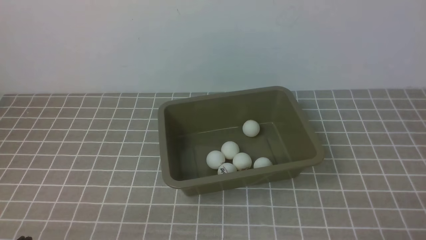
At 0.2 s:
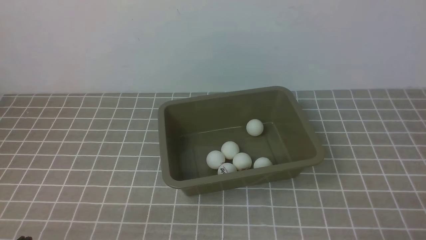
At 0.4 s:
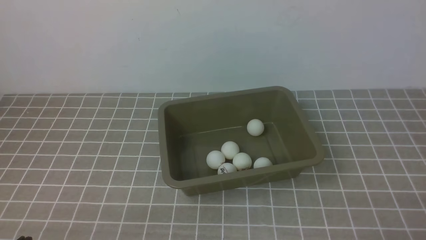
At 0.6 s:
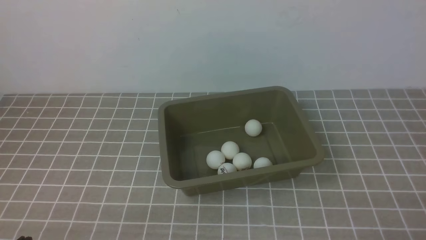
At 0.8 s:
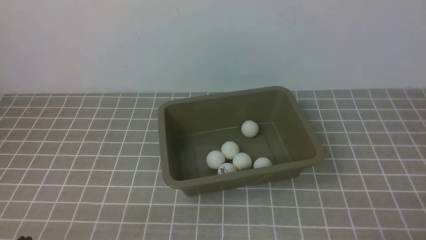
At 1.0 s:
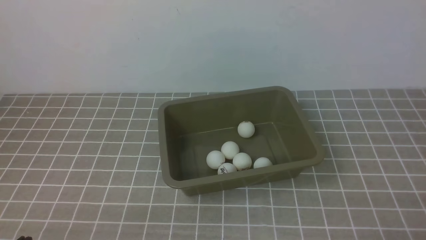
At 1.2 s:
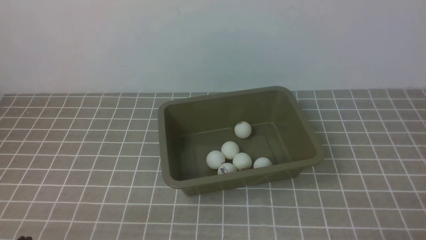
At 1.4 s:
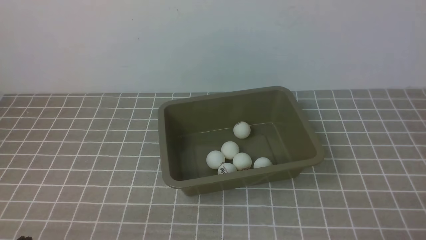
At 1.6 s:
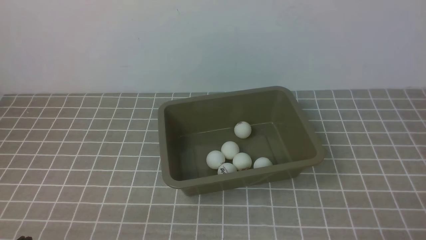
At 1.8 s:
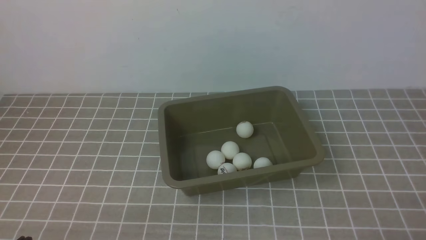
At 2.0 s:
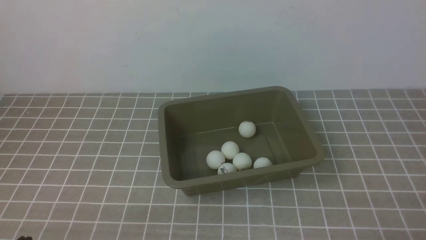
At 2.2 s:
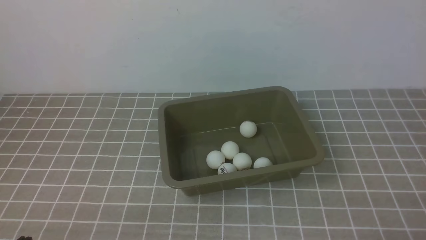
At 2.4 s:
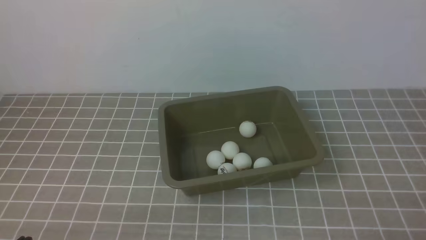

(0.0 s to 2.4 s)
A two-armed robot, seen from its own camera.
0.0 s - 2.4 s: The two grippers keep their place.

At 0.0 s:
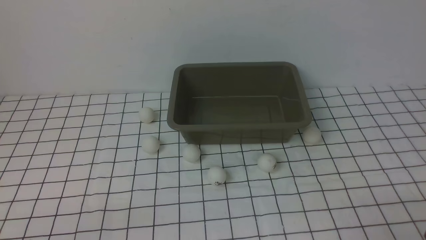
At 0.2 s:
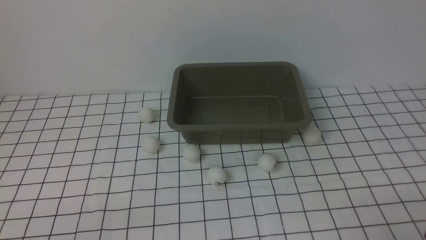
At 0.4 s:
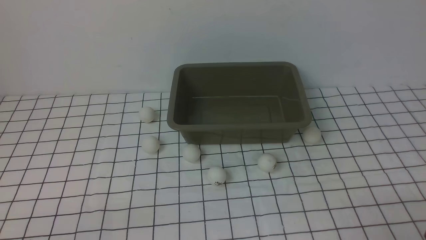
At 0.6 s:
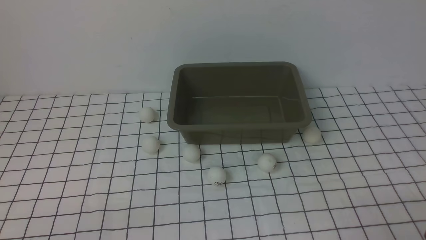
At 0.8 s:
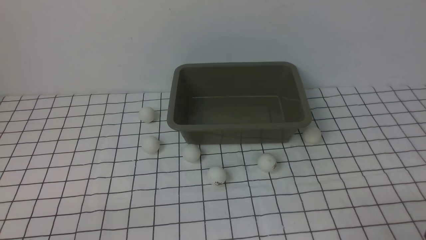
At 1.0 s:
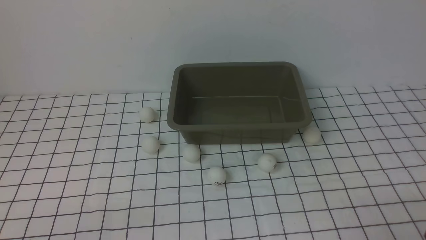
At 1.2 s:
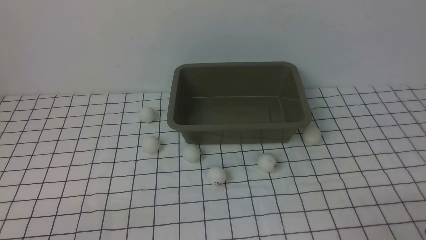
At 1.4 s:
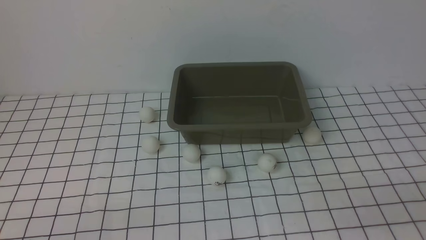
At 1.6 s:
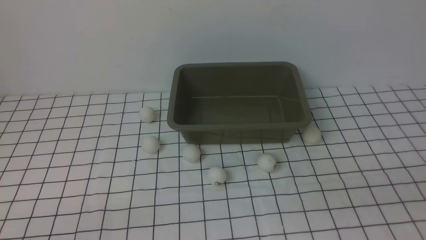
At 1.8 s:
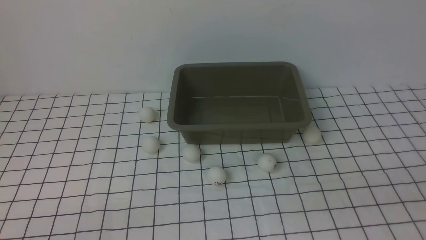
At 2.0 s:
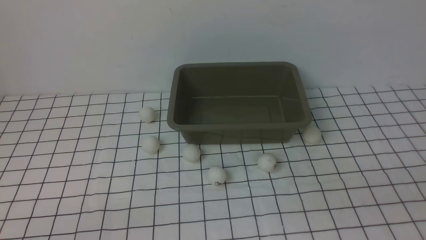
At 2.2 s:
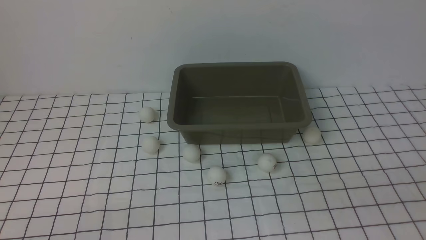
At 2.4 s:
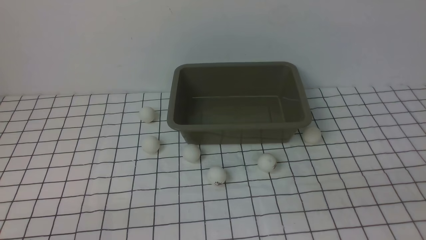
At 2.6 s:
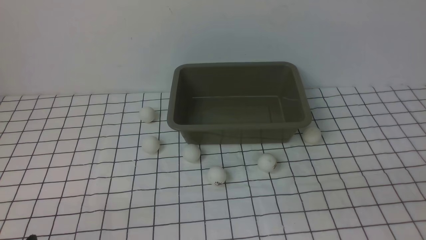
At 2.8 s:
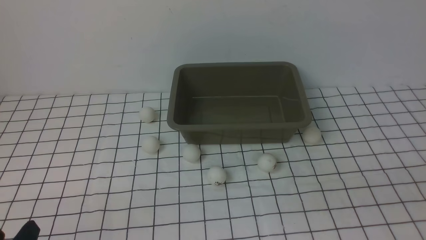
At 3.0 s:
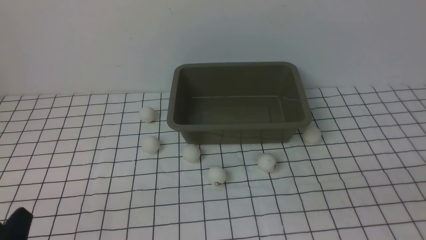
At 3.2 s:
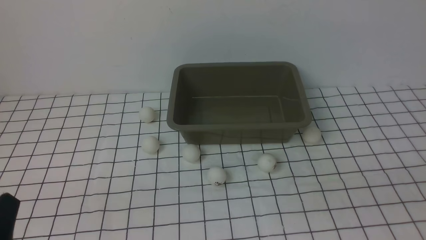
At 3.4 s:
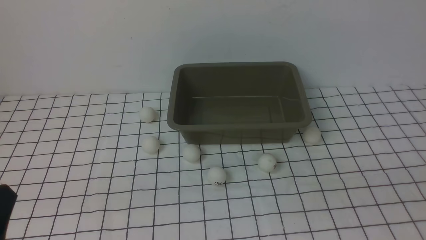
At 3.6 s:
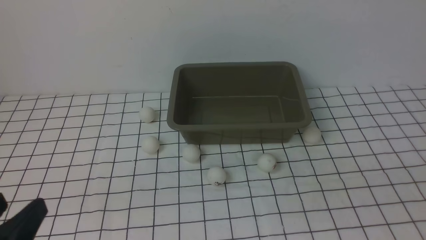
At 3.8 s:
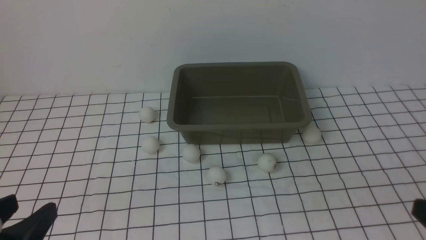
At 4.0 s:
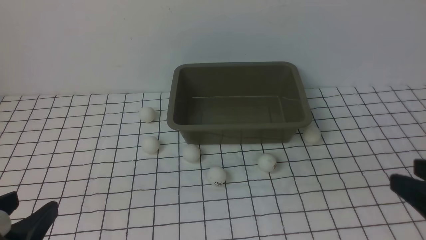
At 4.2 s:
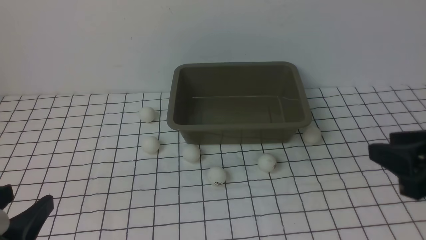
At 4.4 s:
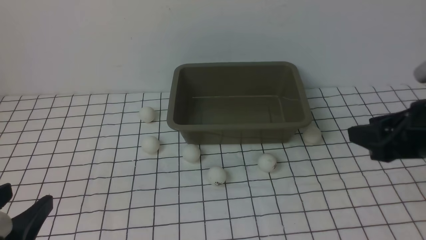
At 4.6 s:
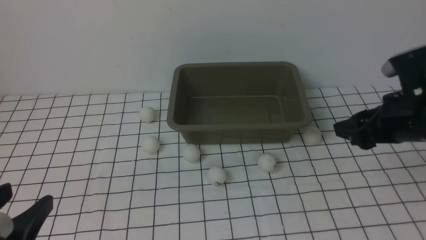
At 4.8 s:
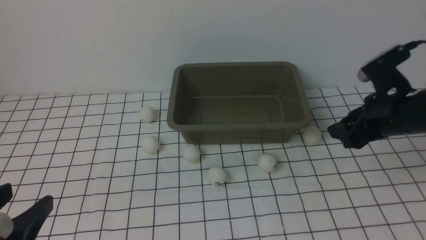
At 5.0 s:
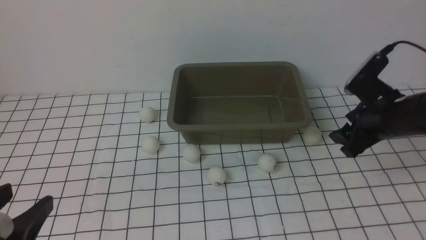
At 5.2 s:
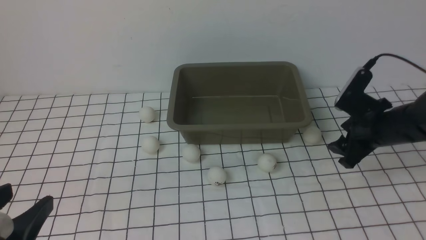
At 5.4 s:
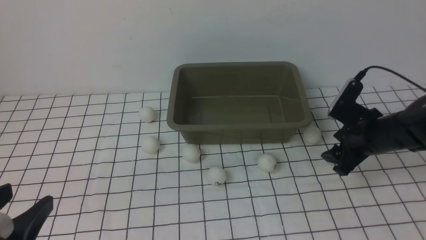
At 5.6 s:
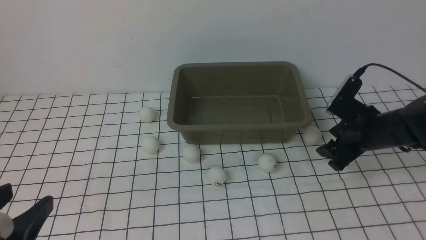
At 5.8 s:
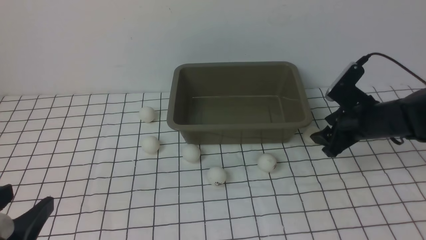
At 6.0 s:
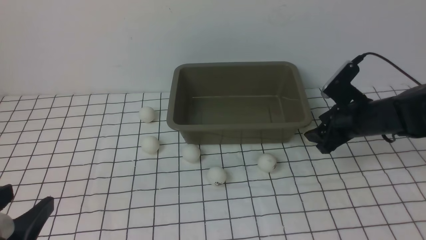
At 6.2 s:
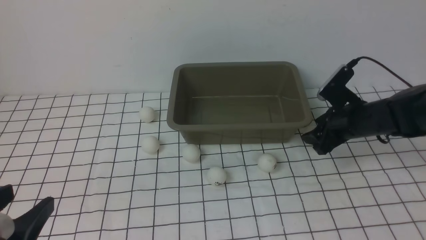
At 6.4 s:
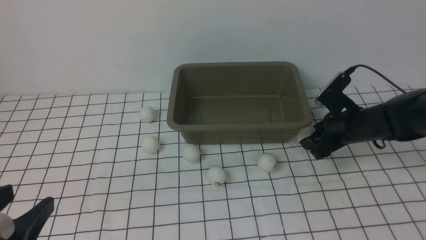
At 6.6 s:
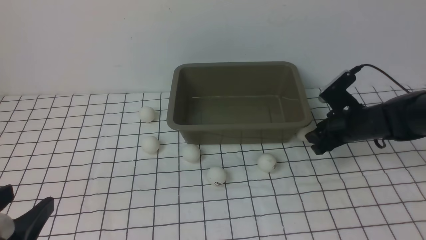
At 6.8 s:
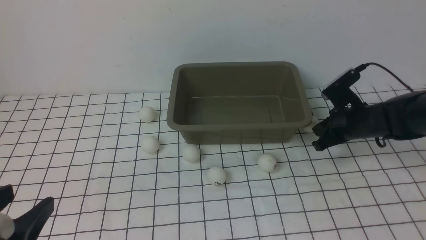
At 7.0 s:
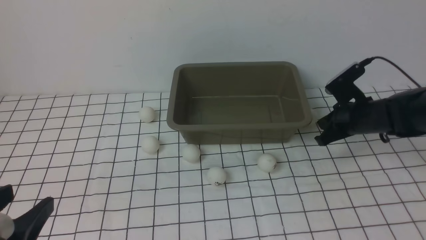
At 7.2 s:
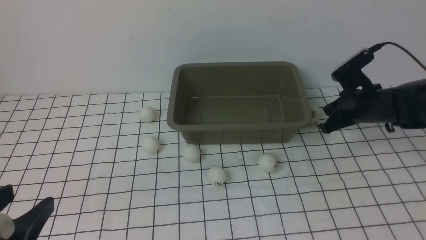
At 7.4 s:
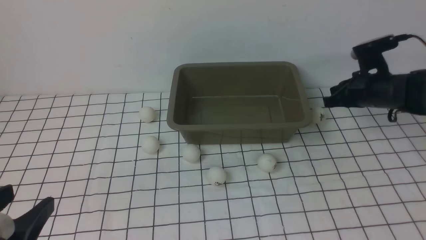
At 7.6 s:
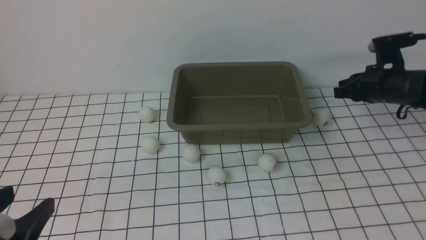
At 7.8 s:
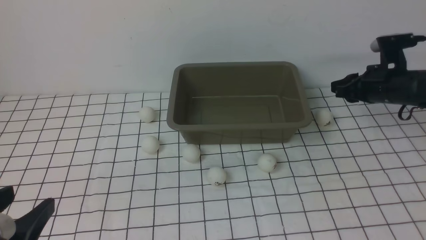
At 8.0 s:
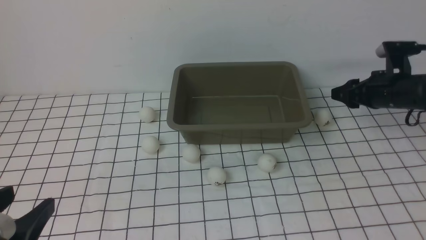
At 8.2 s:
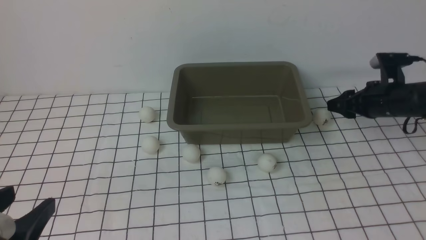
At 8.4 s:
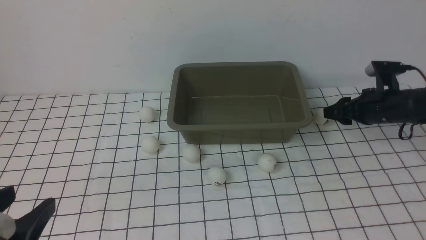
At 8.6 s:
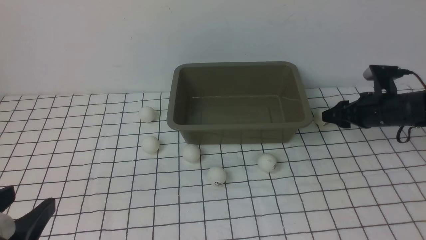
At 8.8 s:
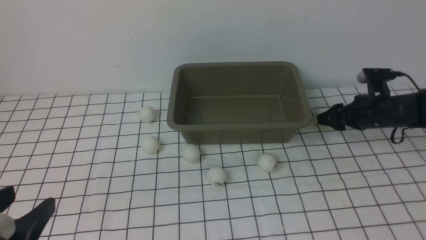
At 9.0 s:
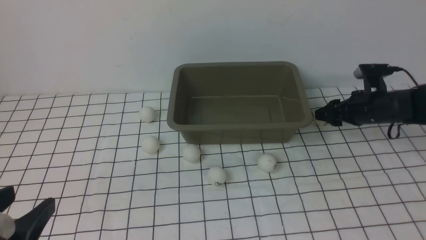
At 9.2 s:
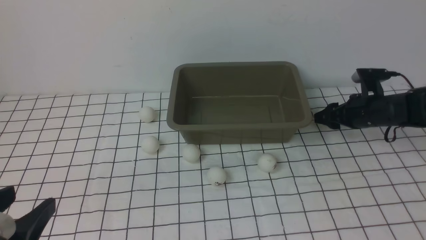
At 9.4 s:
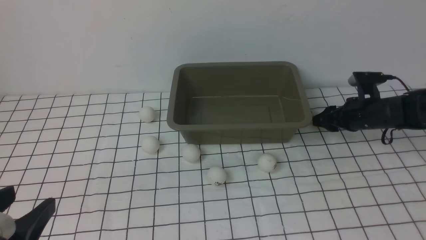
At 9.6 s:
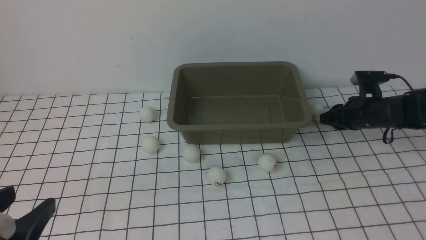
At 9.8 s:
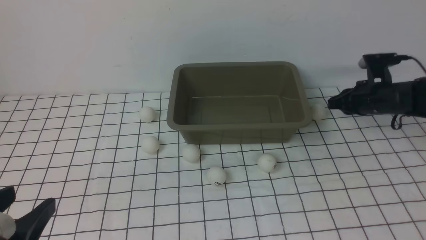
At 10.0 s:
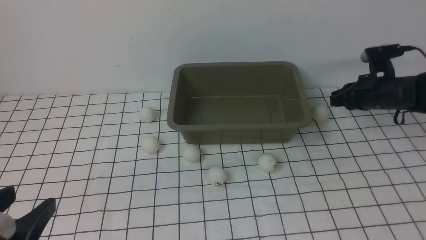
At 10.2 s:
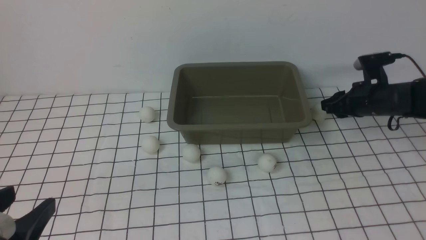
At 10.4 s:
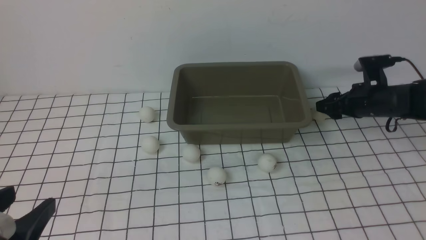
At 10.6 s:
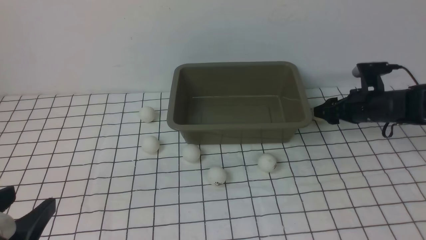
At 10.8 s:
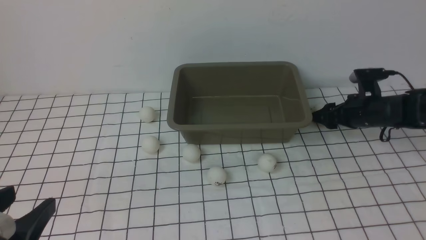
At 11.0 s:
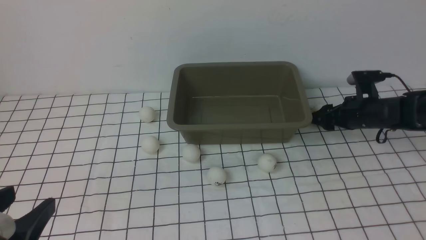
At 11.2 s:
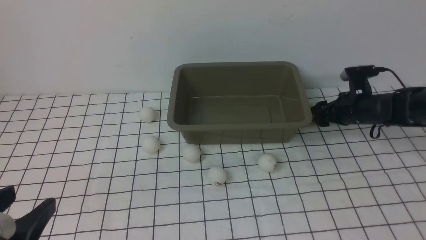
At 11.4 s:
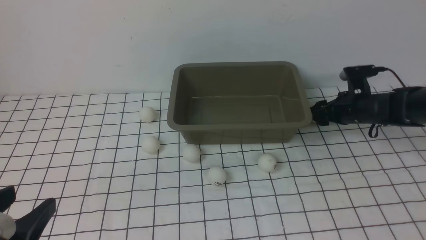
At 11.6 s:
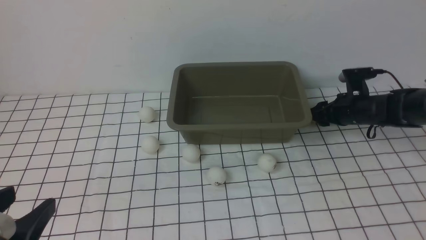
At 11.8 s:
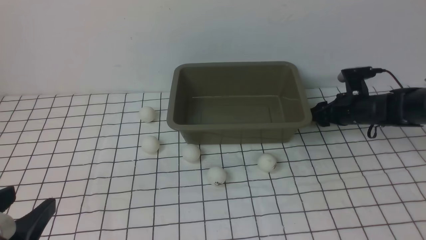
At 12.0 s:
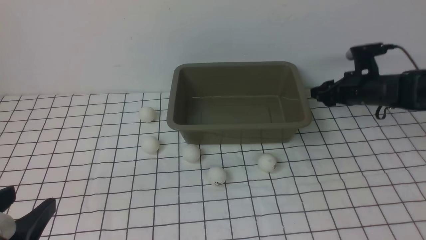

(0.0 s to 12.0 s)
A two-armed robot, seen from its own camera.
3.0 s - 4.4 s: The left gripper shifts some 10 cm upward, while the right gripper is displaced forward by about 20 cm.
4.4 s - 6.0 s: The right gripper shifts some 20 cm forward and downward.
6.0 s - 7.6 s: The right gripper ends up some 5 cm from where it was, and closes.
7.6 s - 9.0 s: The right gripper heads downward, covering roughly 5 cm, and opens up.
9.0 s - 10.4 s: The right gripper closes and opens again.
10.4 s - 12.0 s: There are only small adjustments of the grippers.

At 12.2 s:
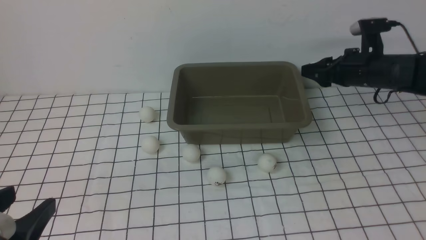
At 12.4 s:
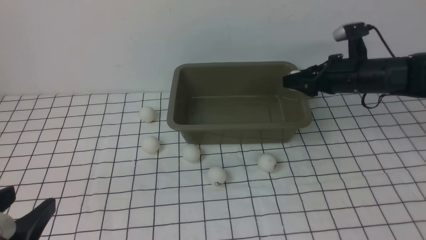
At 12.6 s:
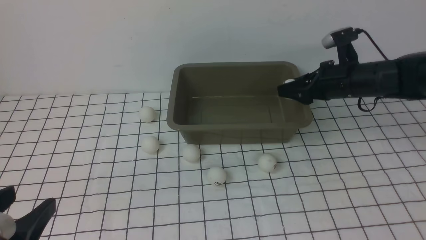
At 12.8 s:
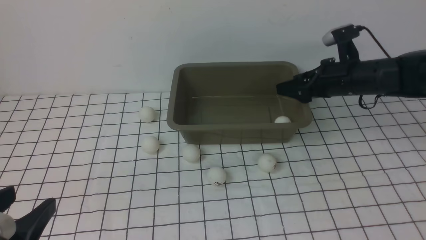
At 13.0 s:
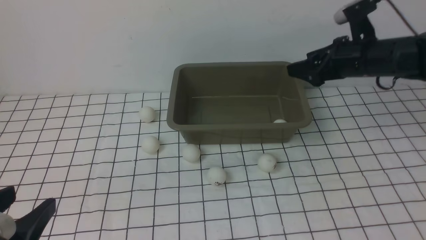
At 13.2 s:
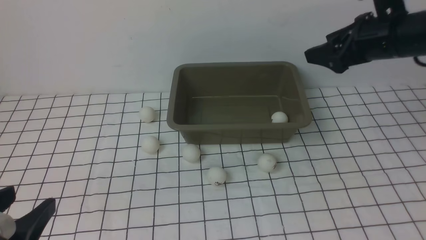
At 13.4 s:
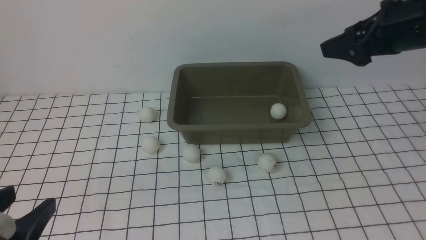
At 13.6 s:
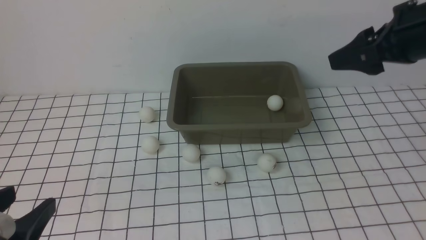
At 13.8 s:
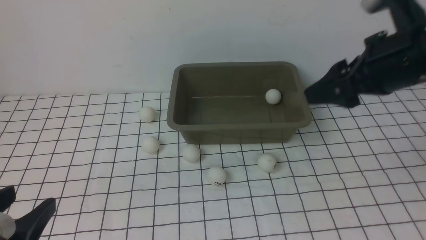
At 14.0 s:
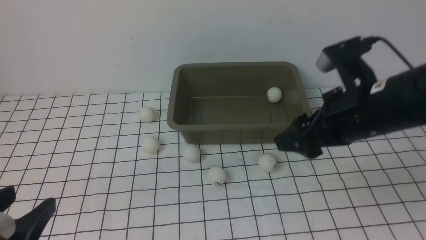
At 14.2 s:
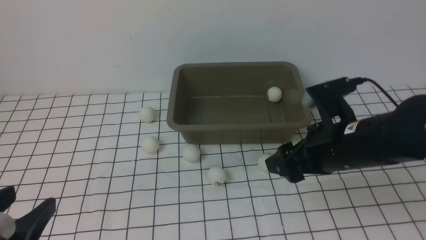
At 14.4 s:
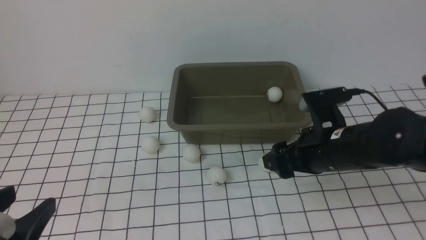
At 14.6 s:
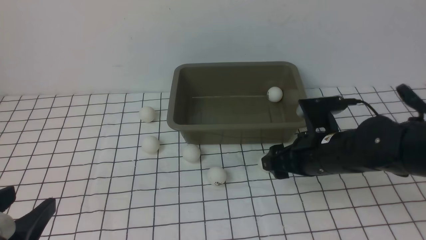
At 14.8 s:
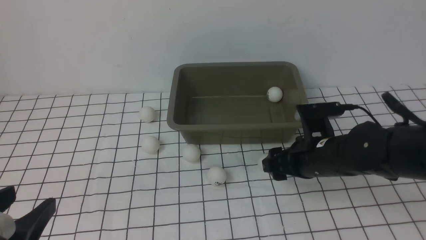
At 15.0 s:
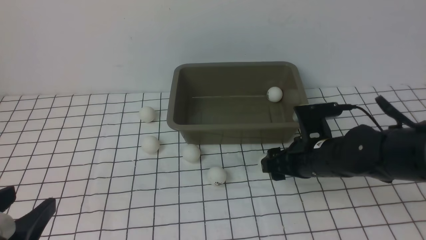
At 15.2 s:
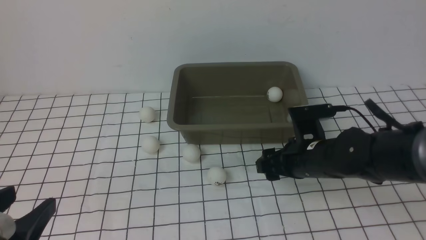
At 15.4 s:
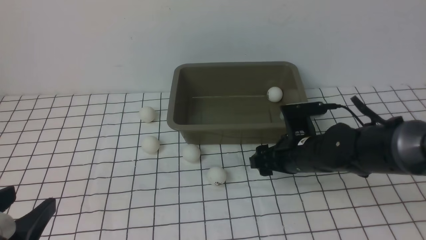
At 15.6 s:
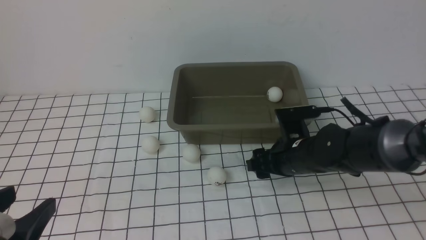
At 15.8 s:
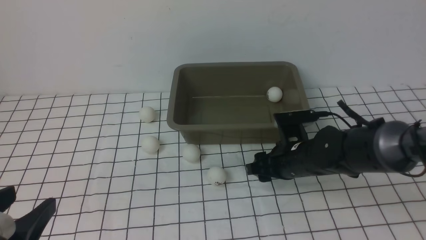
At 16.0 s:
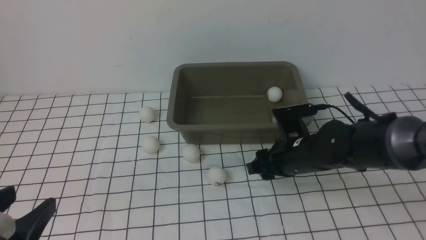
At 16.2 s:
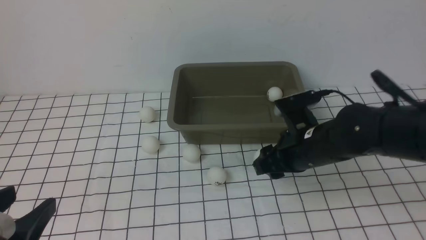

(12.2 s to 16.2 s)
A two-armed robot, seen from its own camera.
Step, 12.2 s - 12.8 s: use the right arm to put the table tennis ball into the box.
12.2 s - 13.6 s: The right gripper travels upward and backward by about 20 cm.
13.6 s - 14.8 s: The right gripper heads downward and to the left, covering approximately 20 cm.
14.8 s - 16.2 s: The grippers move only a little.
